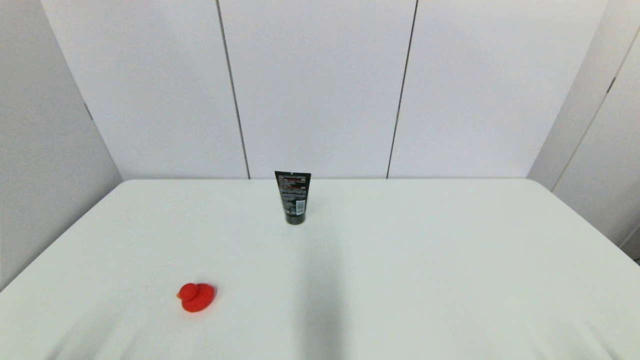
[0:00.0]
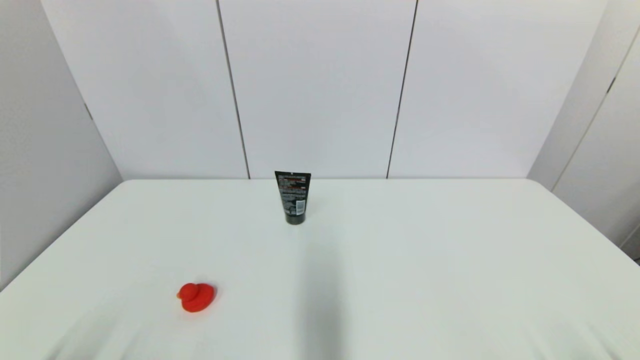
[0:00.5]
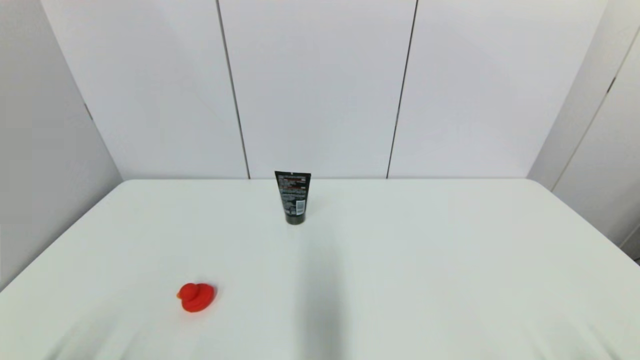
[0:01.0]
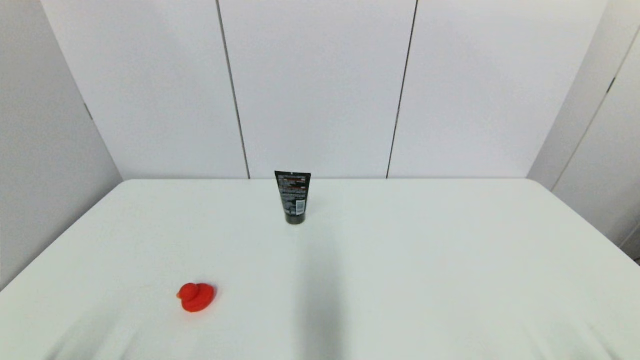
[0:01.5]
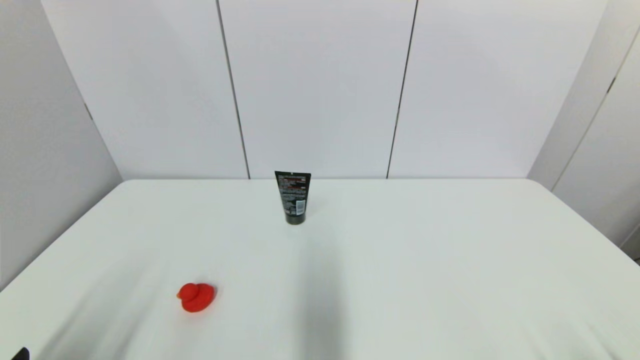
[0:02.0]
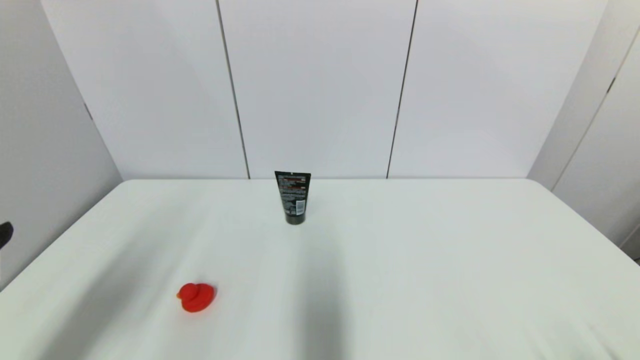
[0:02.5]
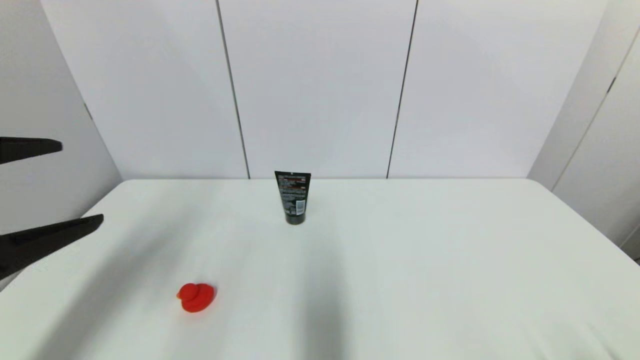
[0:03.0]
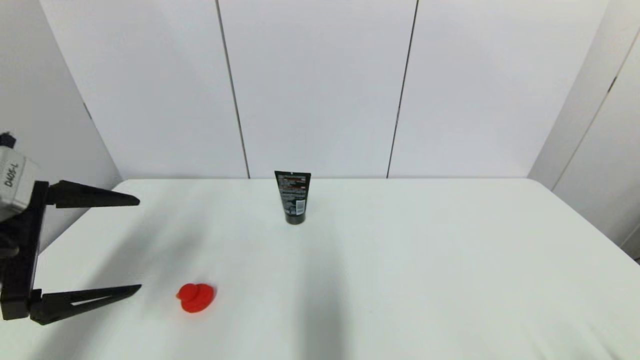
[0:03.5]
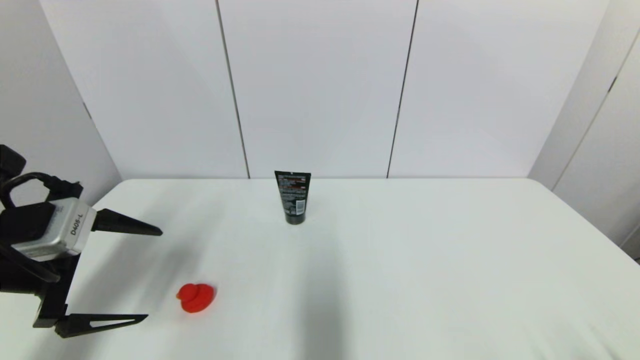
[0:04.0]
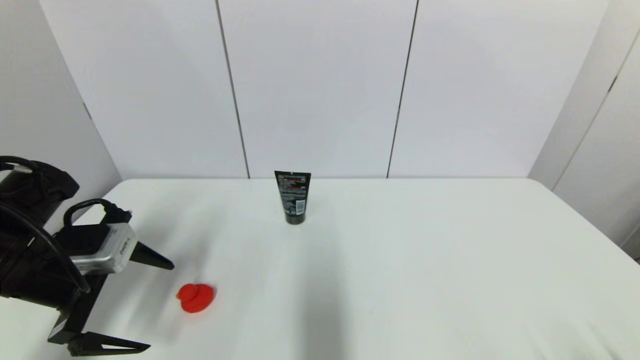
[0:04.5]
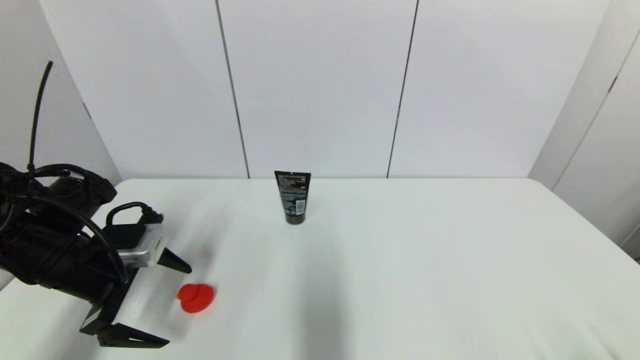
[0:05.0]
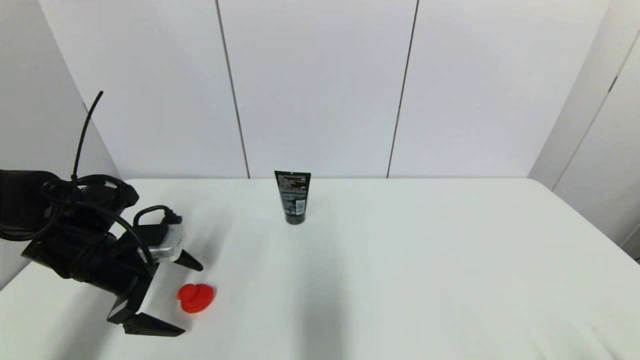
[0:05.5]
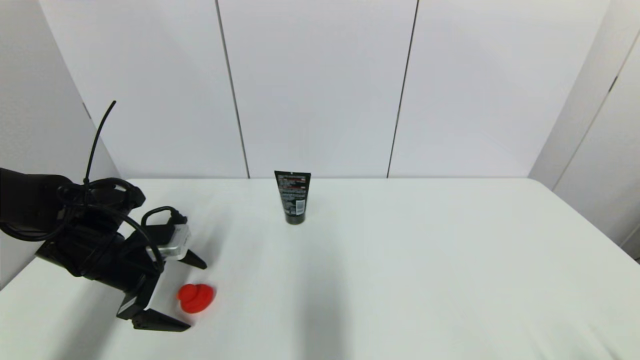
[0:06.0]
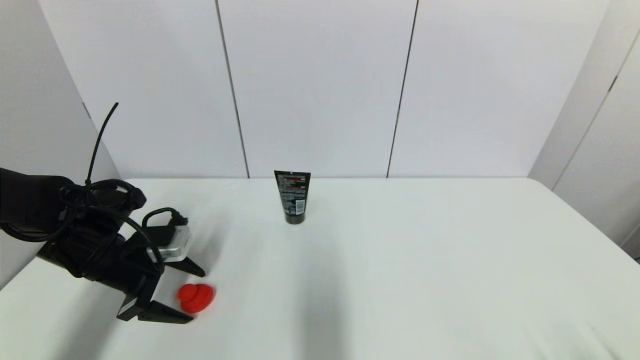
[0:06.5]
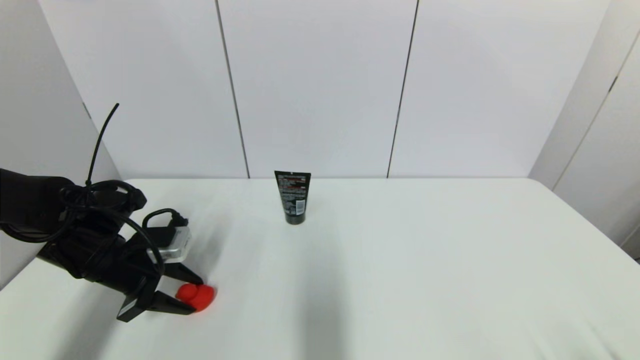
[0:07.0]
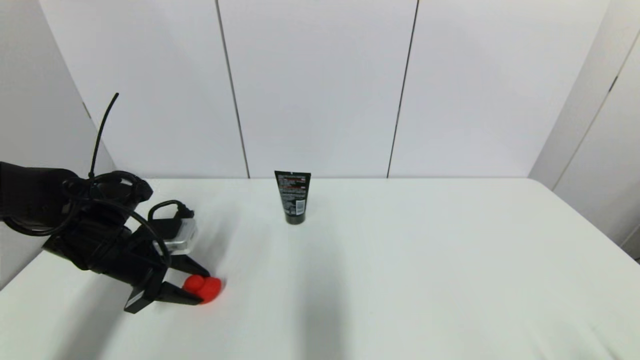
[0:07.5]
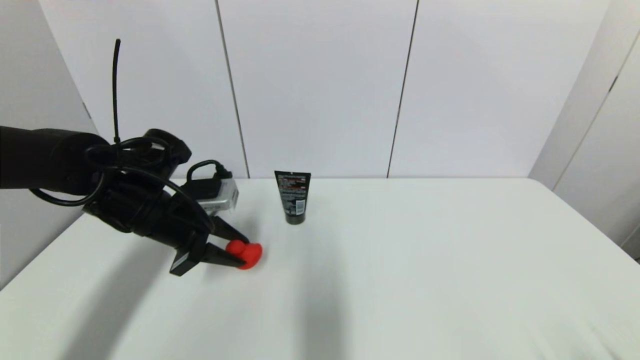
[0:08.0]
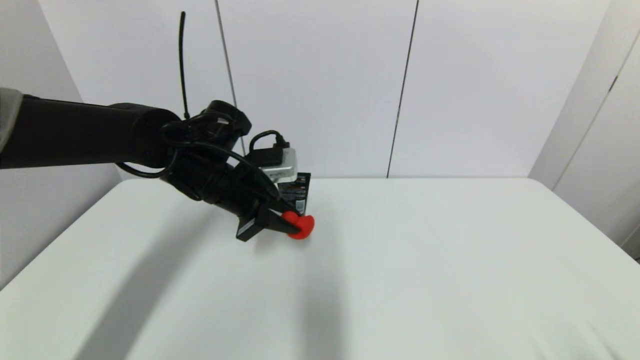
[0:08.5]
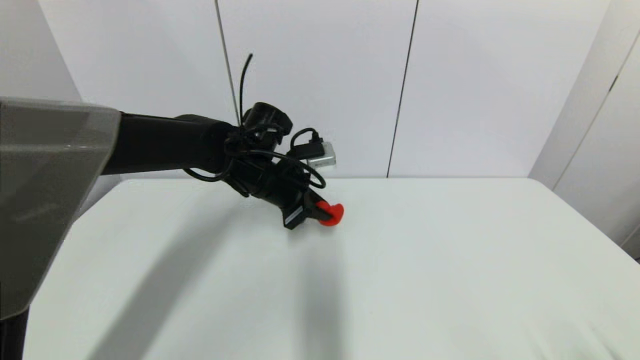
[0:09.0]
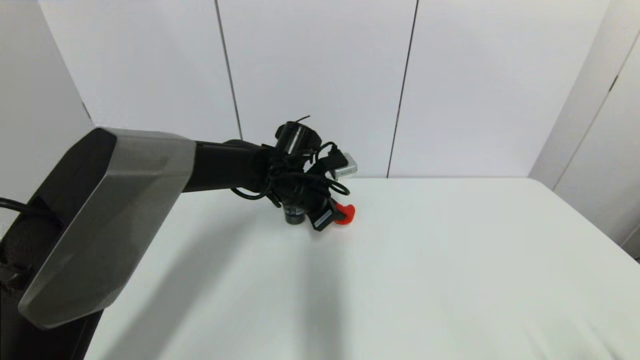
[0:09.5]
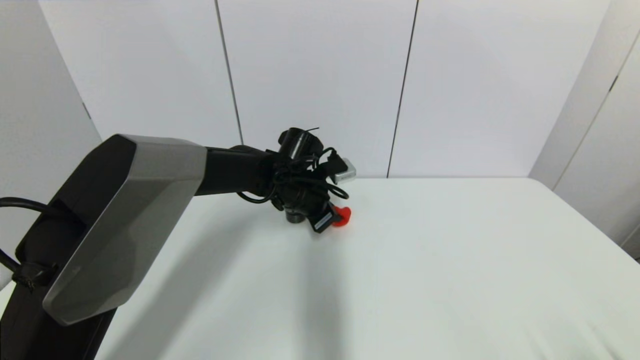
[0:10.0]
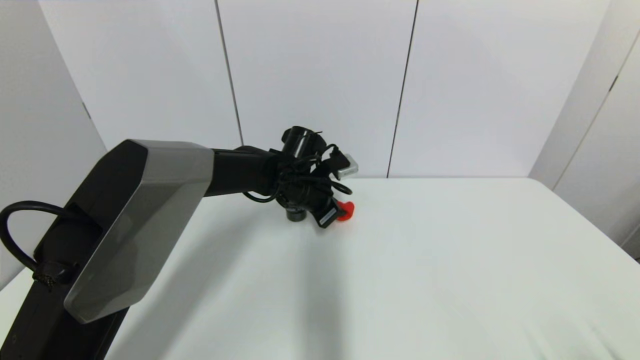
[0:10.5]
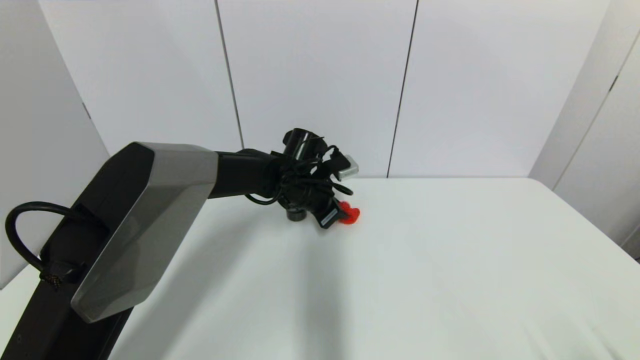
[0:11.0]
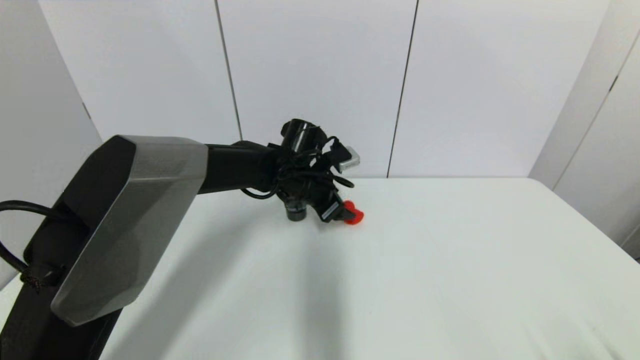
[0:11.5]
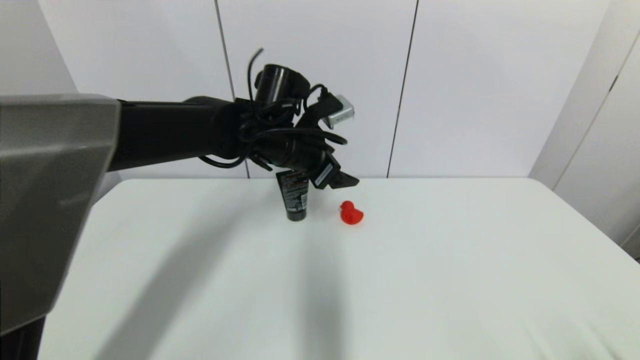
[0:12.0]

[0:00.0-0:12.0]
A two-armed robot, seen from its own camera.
Step, 0:02.0 to 0:07.5: Grasp the red duck with left gripper.
Step, 0:08.0 to 0:11.0: Place the red duck on the table with left gripper.
0:00.0 to 0:02.0: The left gripper goes roughly 10 cm upward.
0:02.0 to 0:04.0: The left gripper heads forward, covering about 20 cm.
0:04.0 to 0:06.0: The left gripper travels downward and forward by some 10 cm.
0:06.0 to 0:08.0: The left gripper is displaced to the right and upward by approximately 10 cm, and closes.
0:08.0 to 0:10.0: The left gripper goes some 20 cm to the right and forward.
0:10.0 to 0:12.0: The left gripper is displaced upward by some 10 cm, and opens.

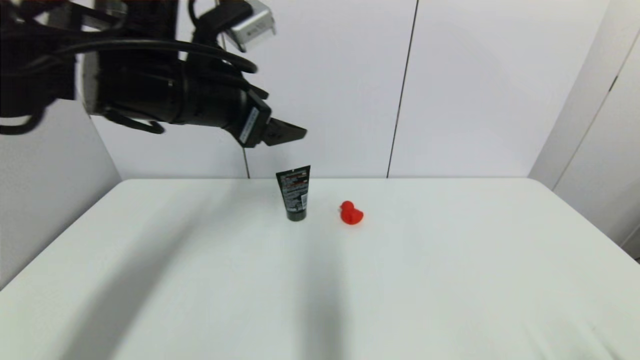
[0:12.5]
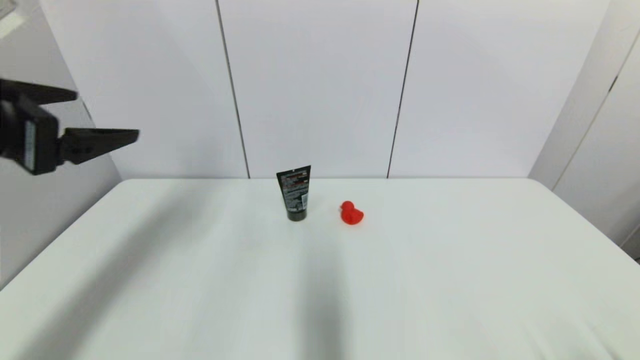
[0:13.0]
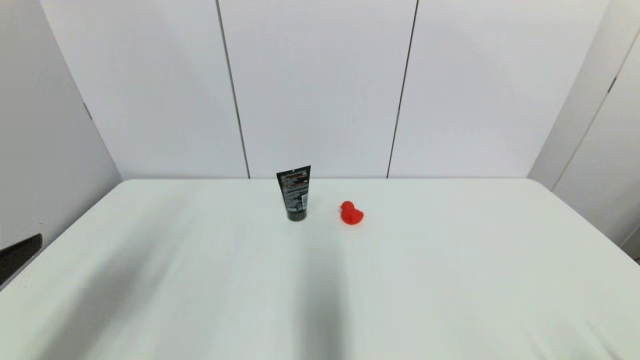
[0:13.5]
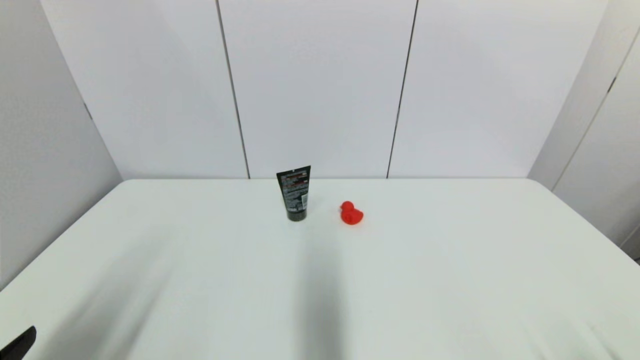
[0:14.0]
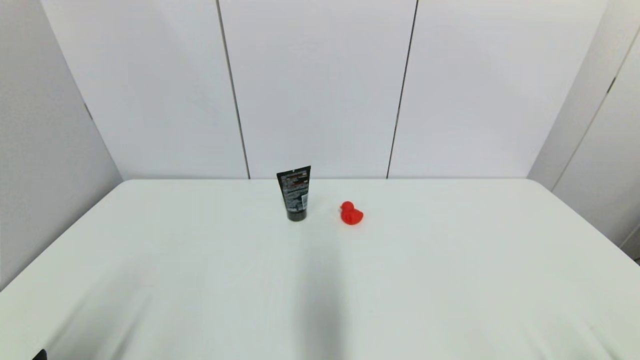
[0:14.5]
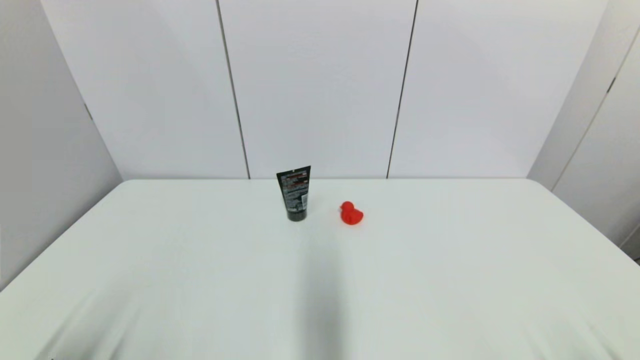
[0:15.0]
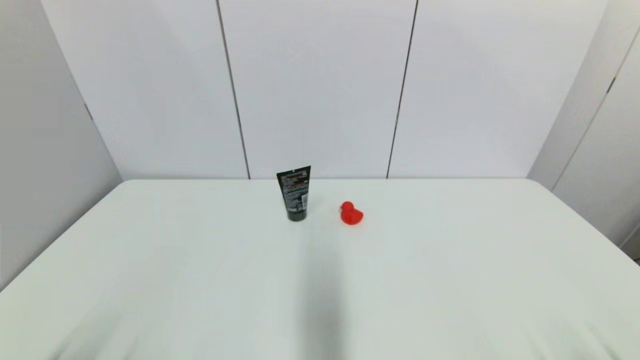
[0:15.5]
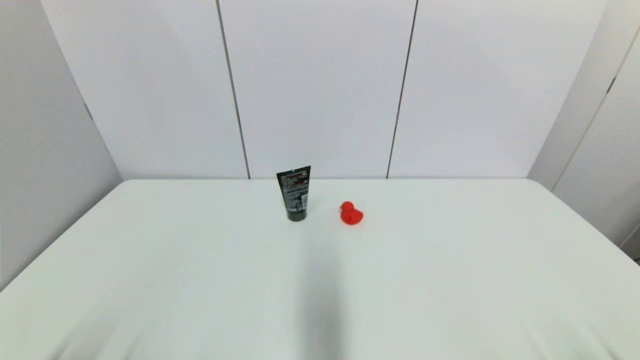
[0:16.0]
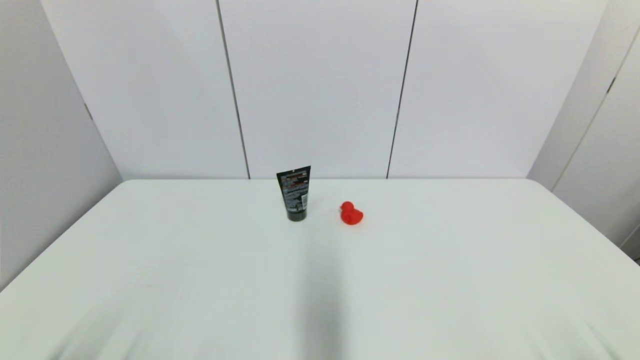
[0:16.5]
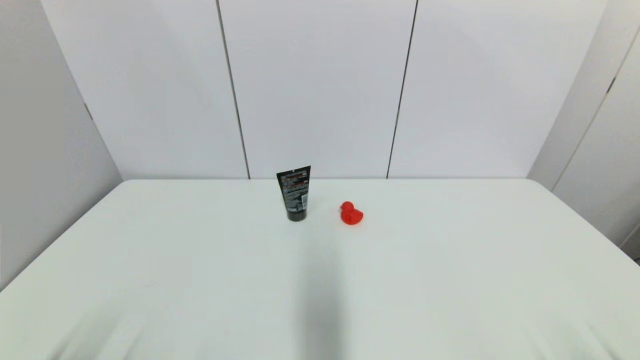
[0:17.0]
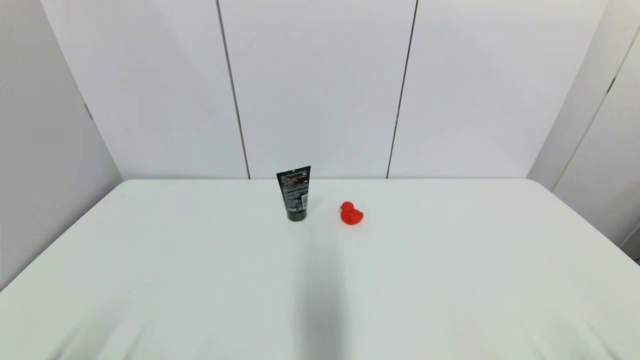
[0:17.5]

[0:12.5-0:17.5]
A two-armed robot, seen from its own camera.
0:12.5 to 0:15.0: The left gripper shifts about 40 cm backward, downward and to the left.
